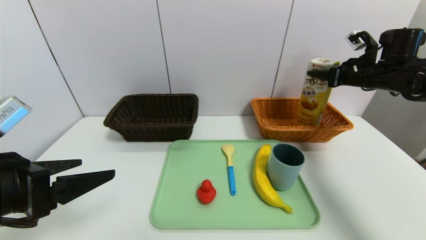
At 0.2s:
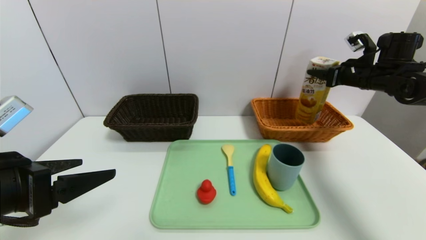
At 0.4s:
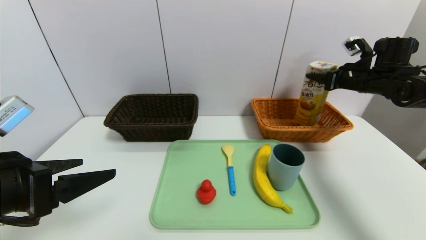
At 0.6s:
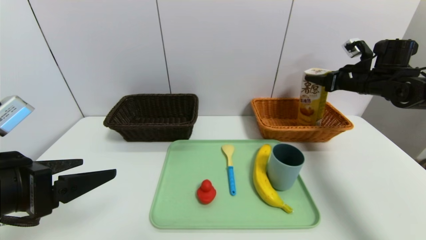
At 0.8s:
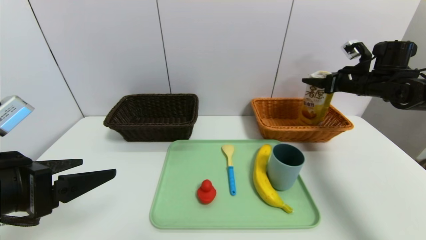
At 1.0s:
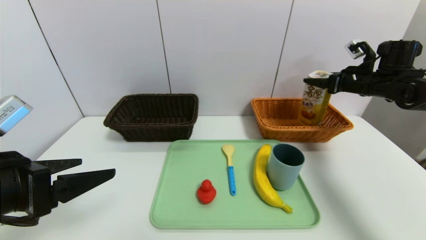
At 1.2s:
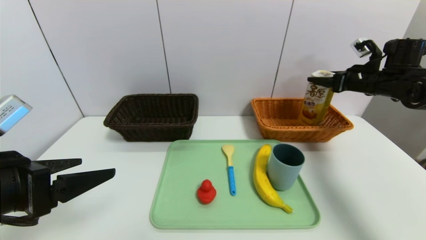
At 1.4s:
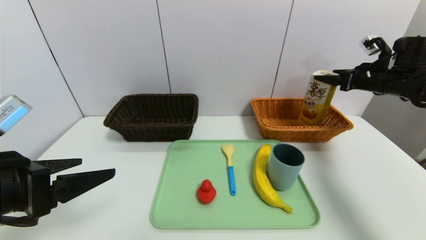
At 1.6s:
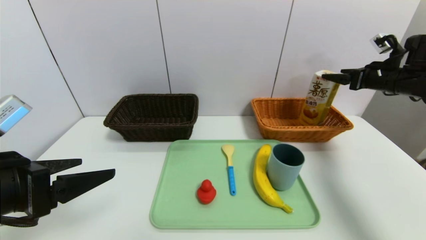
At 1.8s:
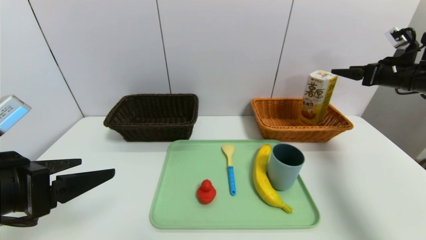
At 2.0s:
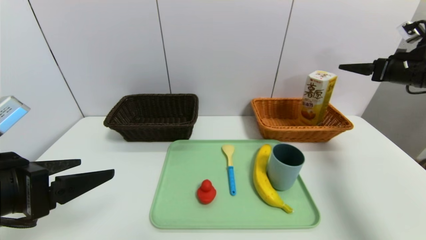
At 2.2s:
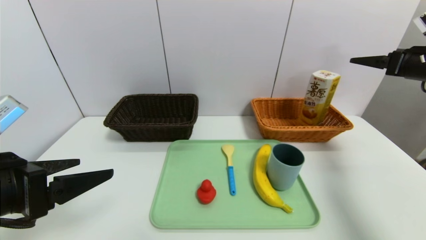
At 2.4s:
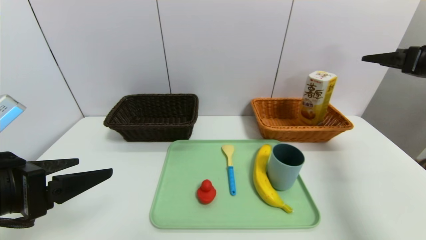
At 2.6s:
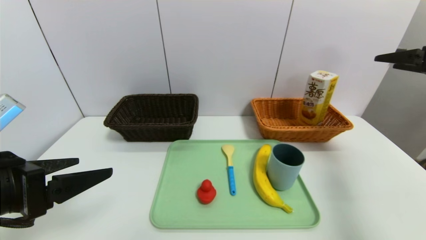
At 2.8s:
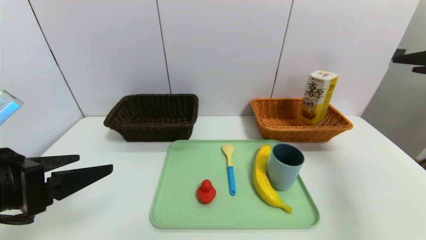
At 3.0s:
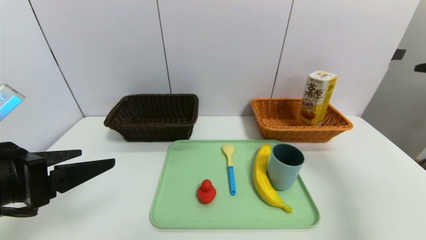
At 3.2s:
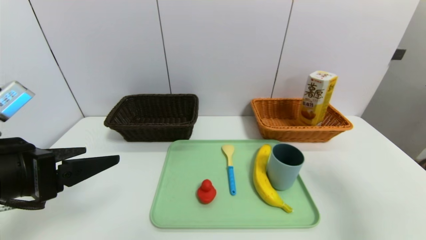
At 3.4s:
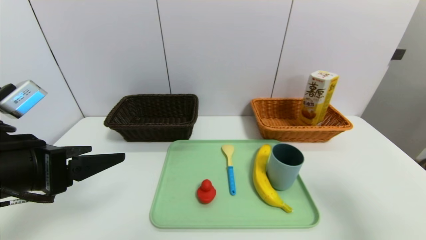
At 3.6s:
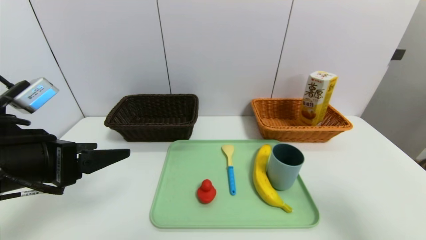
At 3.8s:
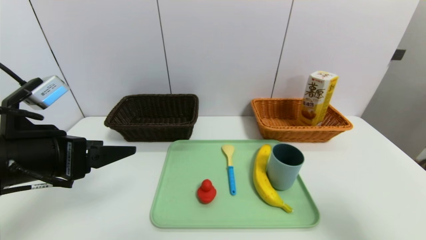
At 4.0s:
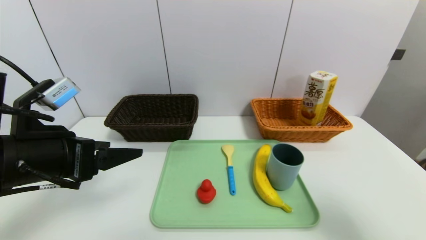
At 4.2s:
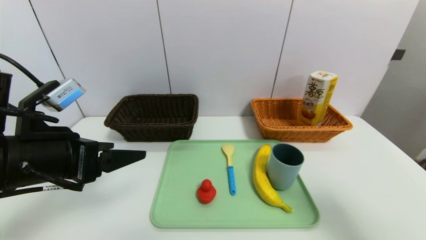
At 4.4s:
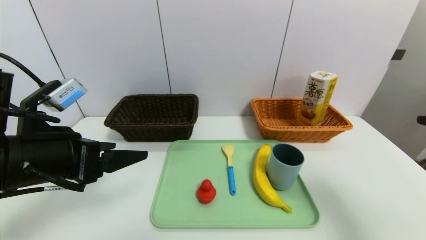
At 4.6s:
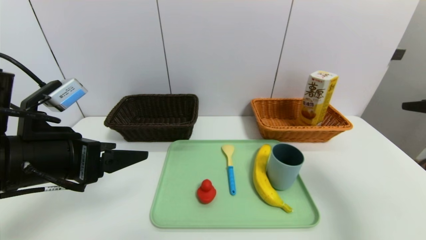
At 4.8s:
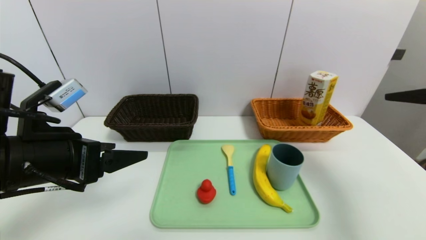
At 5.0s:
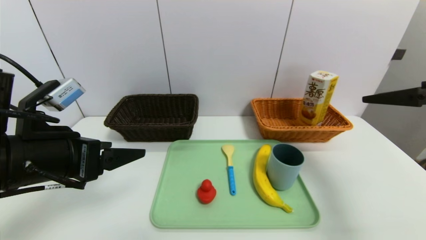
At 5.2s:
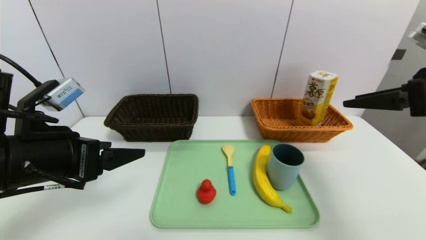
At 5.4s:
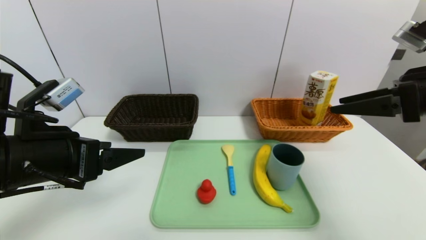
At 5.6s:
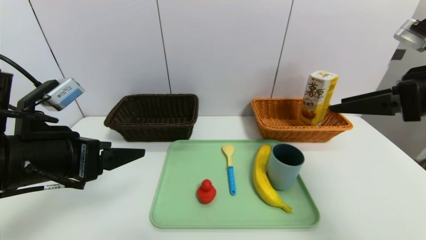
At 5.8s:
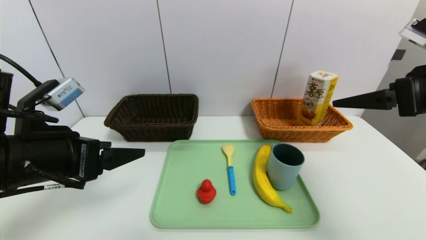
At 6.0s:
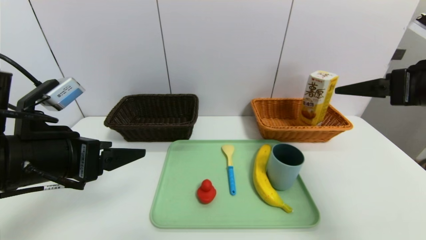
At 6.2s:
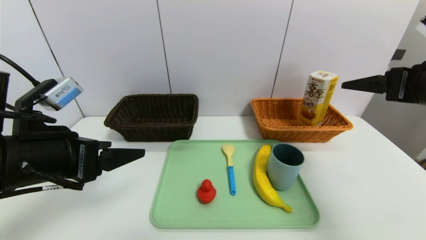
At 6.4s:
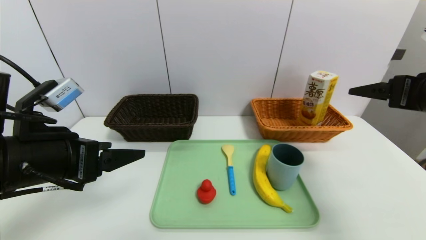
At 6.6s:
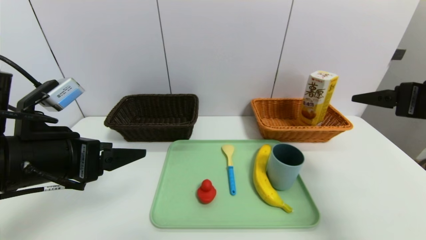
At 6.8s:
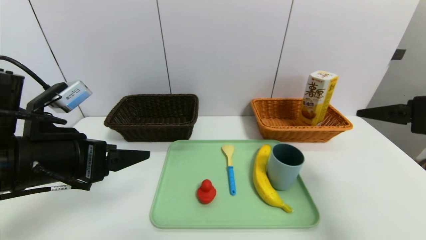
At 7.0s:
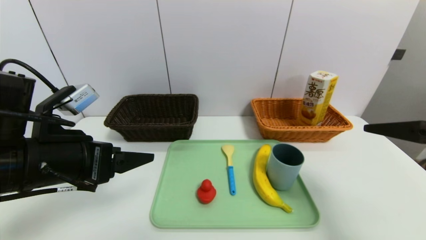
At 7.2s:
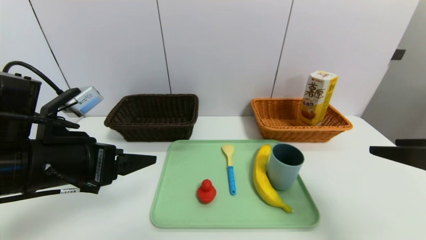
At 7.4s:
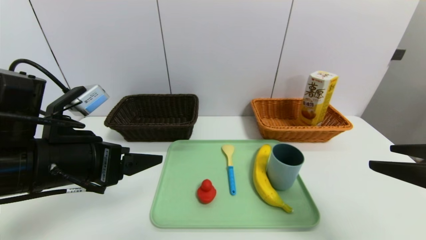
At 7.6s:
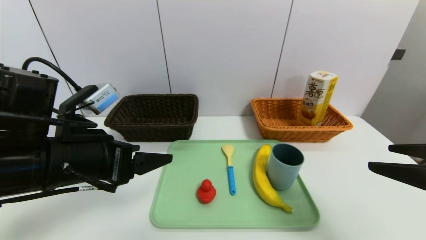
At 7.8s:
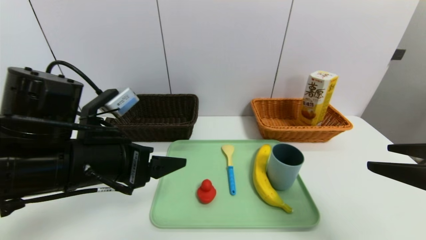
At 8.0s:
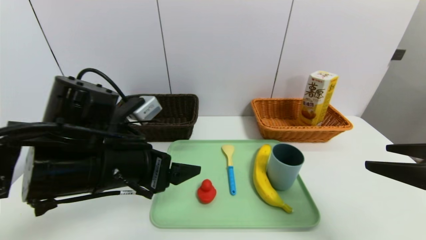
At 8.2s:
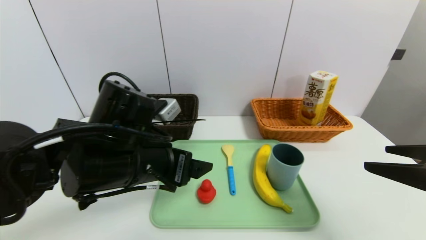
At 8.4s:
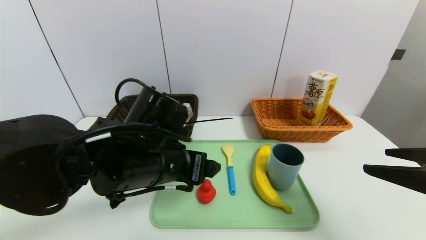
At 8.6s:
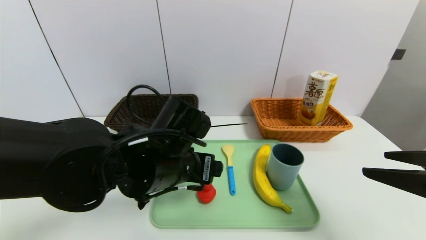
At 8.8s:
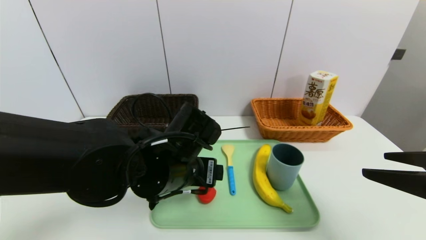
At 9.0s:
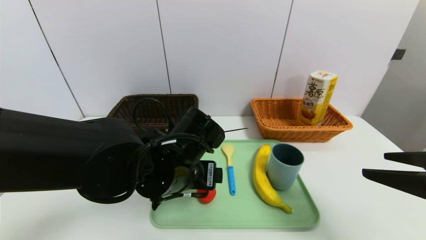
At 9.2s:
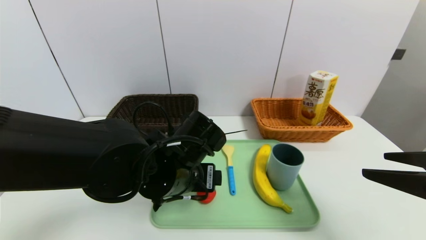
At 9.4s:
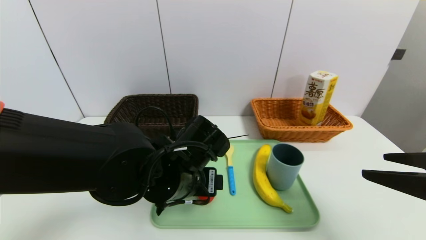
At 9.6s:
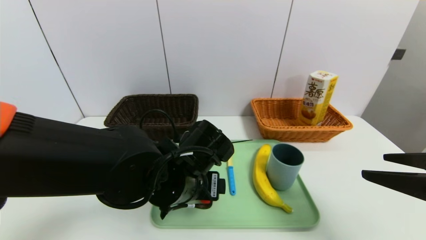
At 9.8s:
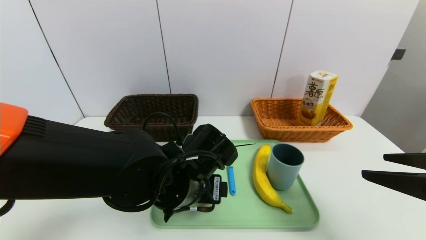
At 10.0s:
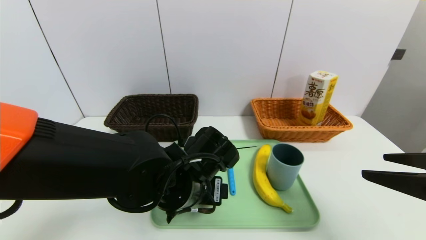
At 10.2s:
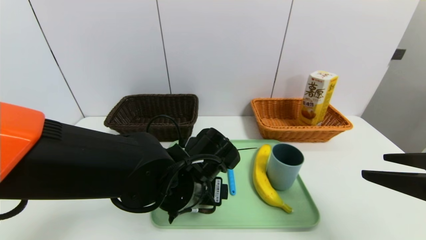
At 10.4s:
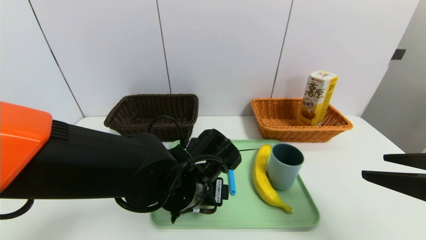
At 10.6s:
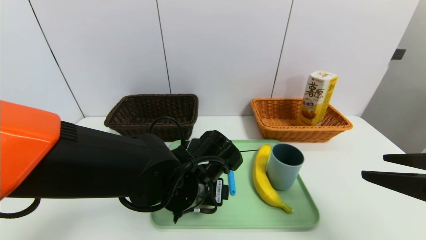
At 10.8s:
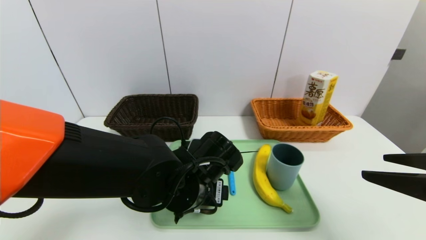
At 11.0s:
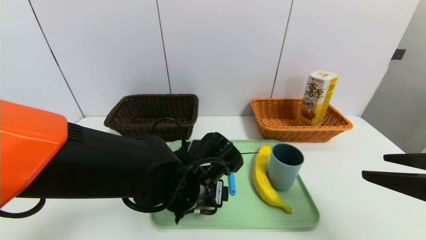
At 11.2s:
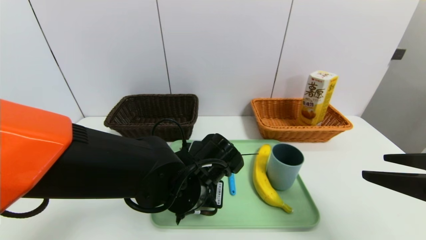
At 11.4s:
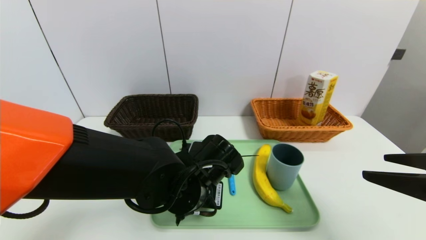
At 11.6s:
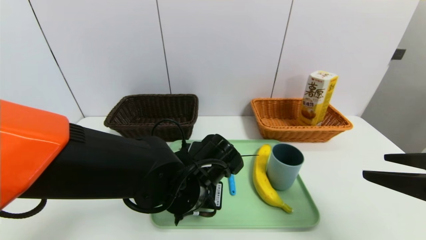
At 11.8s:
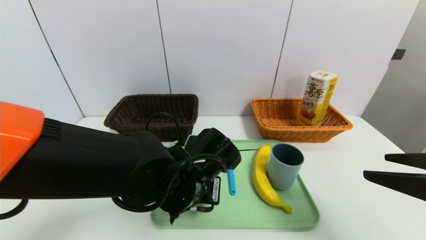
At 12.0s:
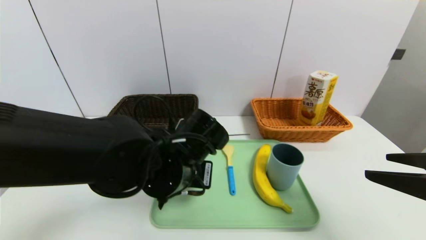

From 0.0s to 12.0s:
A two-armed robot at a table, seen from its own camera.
Task of the whole recording: place the food in the right basket with the right gripper, and place the non food items in the left basket with the left gripper.
From 0.0s to 1.6s: The right gripper travels to the right by roughly 5 cm, and opens up.
From 1.6s to 3.0s: The right gripper heads backward, covering some 20 cm.
From 3.0s to 4.4s: The left gripper moves approximately 5 cm. The right gripper moves backward, some 5 cm.
From 4.4s to 6.0s: The right gripper shifts roughly 10 cm forward and to the left.
From 6.0s to 7.6s: The right gripper travels backward by roughly 10 cm.
From 7.6s to 9.0s: The left gripper travels to the right and downward by roughly 15 cm.
From 9.0s to 10.4s: The grippers make only small movements.
From 10.4s to 12.0s: The left gripper closes.

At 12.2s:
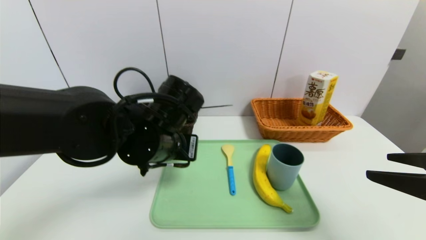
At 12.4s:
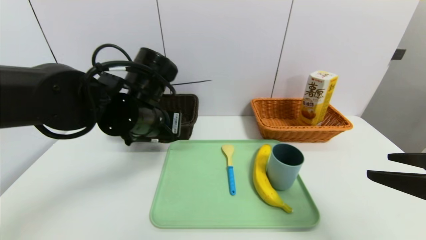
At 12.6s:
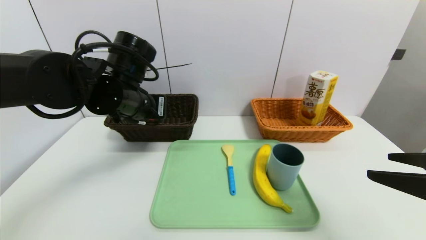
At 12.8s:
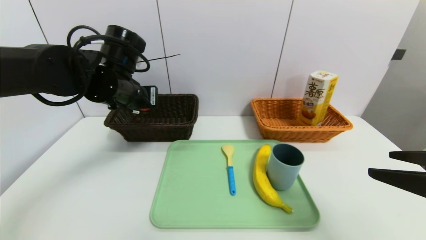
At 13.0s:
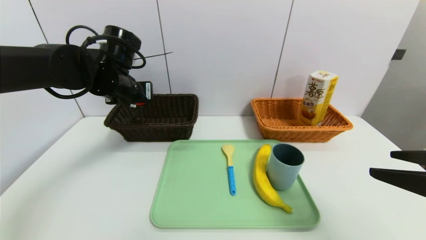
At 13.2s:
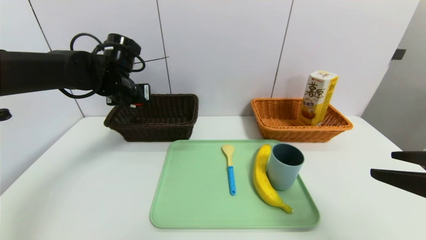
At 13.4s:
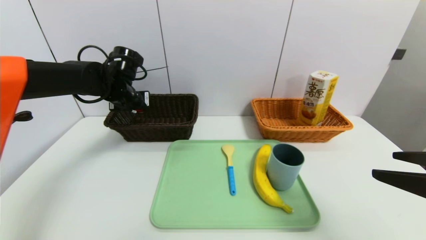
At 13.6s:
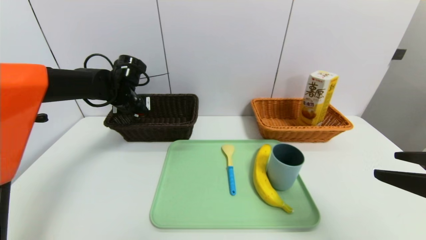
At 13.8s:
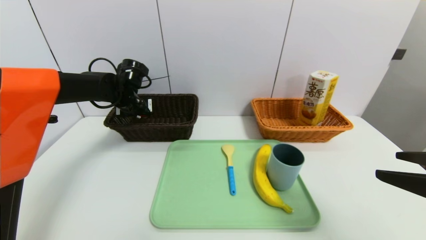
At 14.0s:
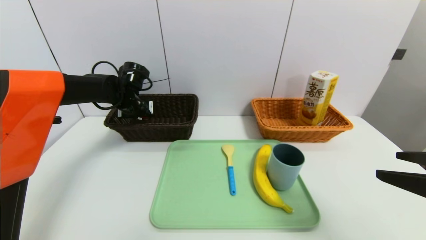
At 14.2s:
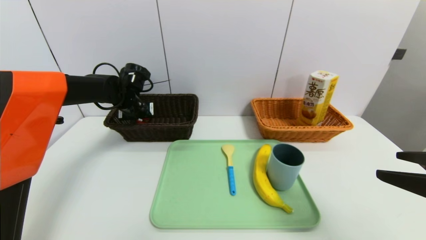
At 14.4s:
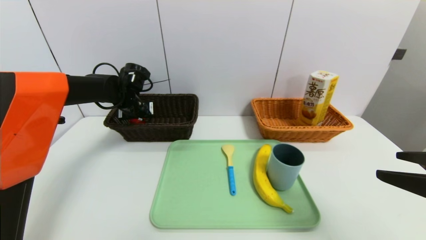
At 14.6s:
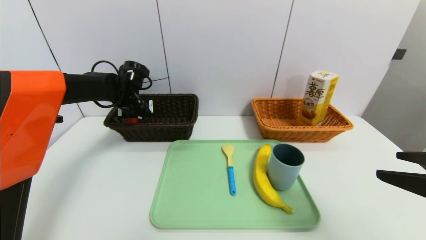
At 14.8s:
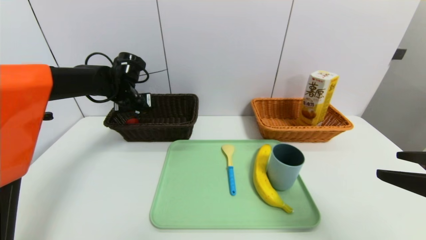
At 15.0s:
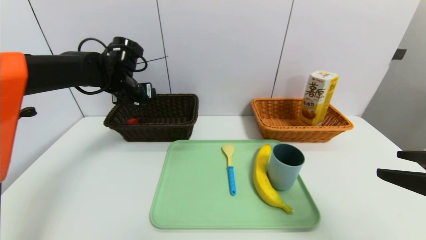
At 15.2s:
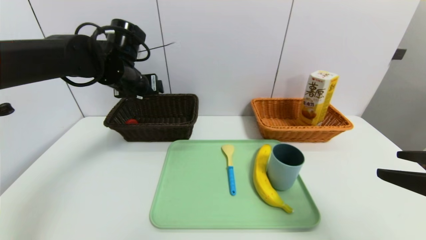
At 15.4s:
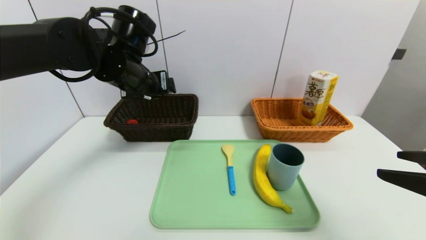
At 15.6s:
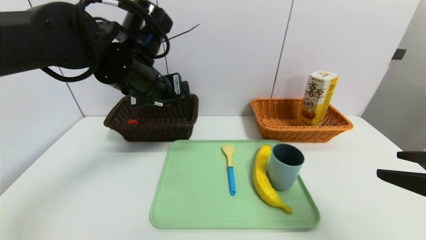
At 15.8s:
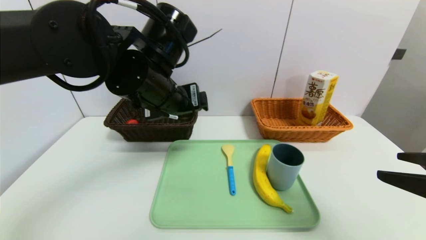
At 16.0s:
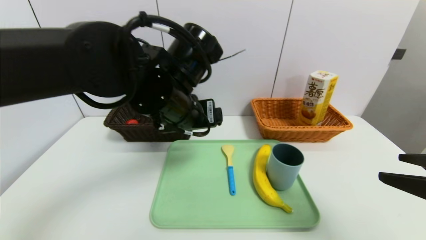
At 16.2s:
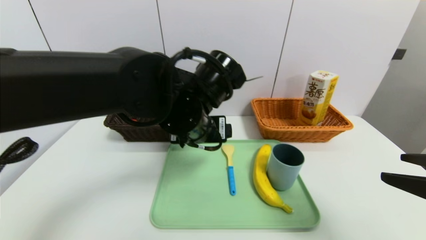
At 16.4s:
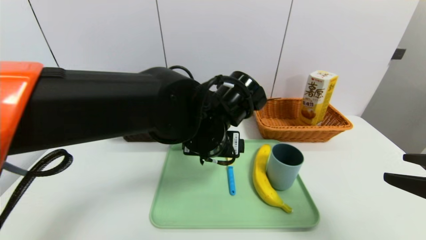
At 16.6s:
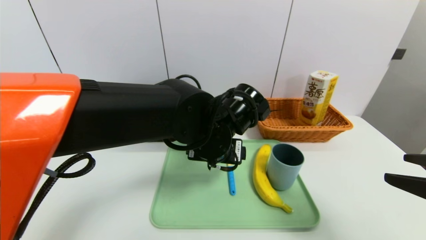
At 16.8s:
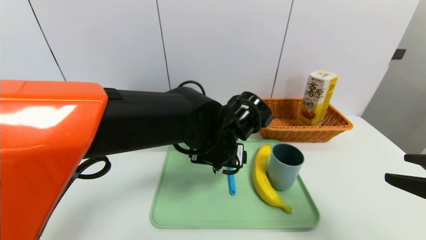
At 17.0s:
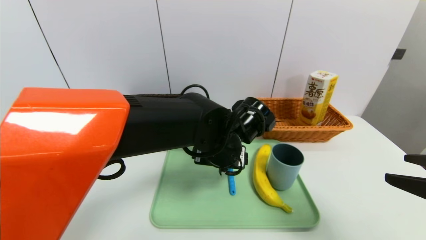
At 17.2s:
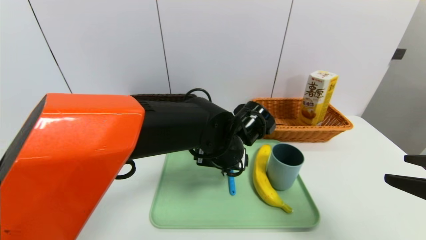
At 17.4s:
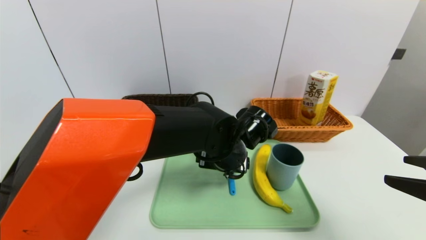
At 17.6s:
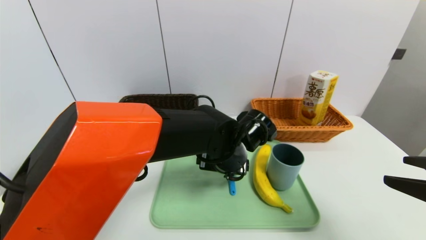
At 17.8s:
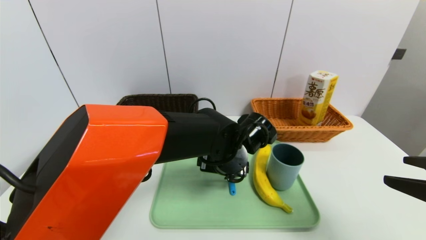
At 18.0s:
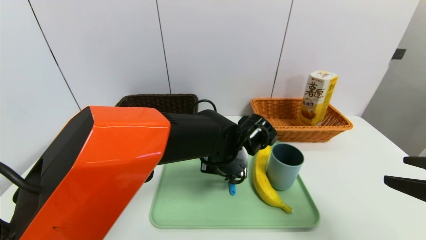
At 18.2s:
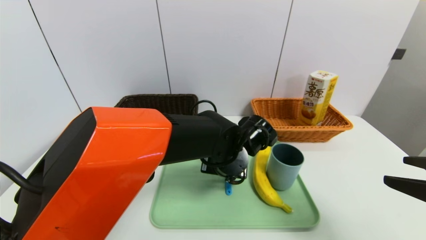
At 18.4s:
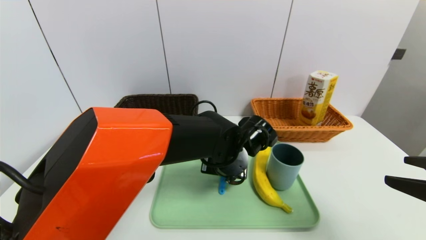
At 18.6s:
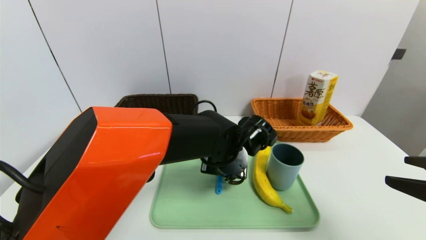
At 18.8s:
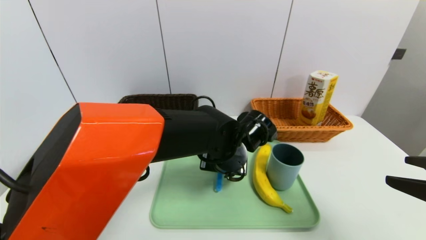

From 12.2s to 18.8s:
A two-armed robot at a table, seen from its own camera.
Task of the whole recording: place the food in the right basket with the right gripper, and place the non food items in the left basket with the left gripper.
Step, from 12.2s to 14.6s: Grasp the red duck and put it in the left basket.
From 12.2s to 13.8s: The left gripper is displaced forward and to the left by about 25 cm.
From 13.8s to 15.4s: The left gripper shifts about 15 cm backward, upward and to the right, and opens its fingers.
From 15.4s to 17.2s: The left gripper shifts roughly 20 cm to the right and downward.
From 17.2s to 18.8s: The left gripper closes its fingers.
